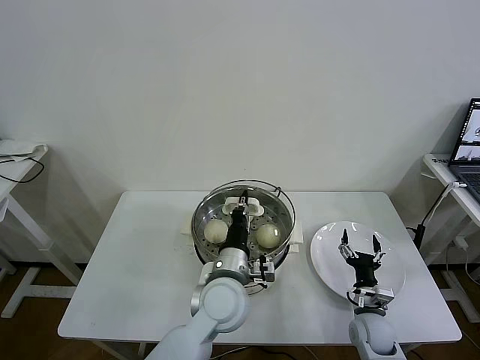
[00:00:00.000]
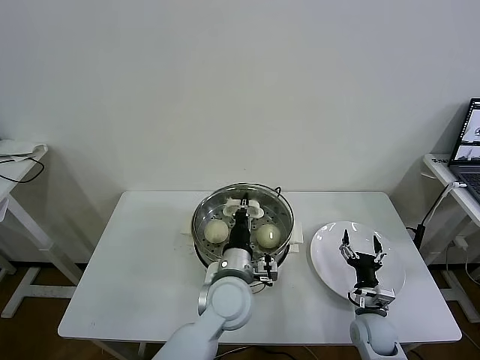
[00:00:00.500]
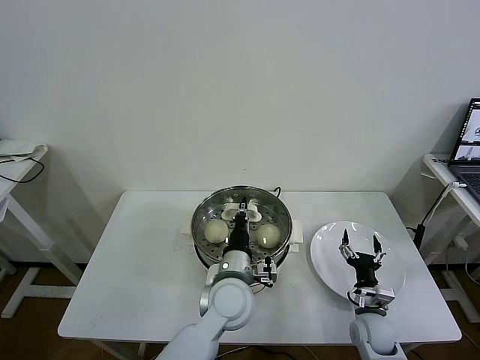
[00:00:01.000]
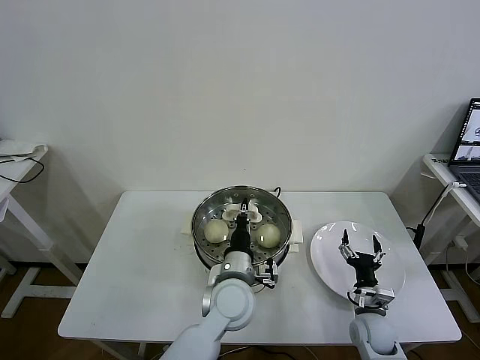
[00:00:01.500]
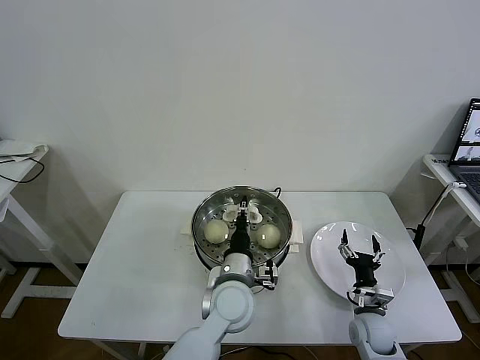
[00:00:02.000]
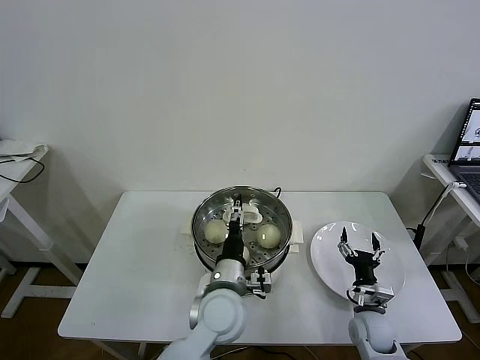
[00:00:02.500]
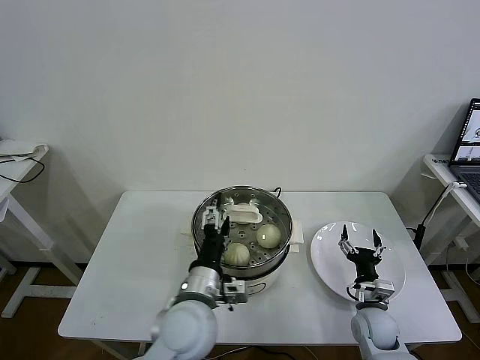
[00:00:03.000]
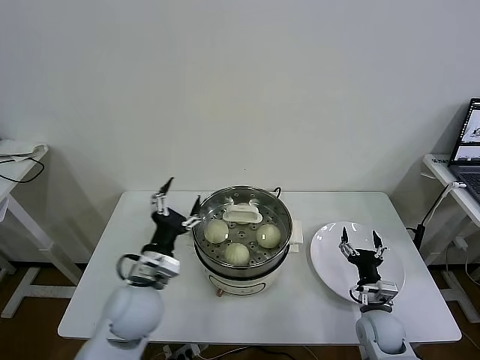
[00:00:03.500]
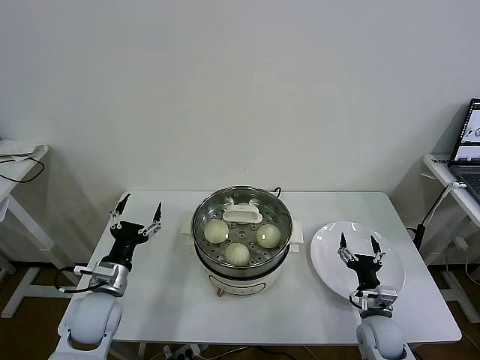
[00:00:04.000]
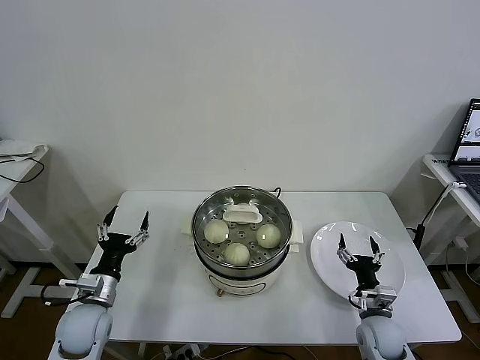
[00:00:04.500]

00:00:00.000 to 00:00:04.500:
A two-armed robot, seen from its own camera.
Task of the whole recording: take steamed baozi put them in steamer then cover it.
Step, 00:00:00.000 to 00:00:02.500: Place the pot lid on the steamer with left gripper.
00:00:00.000 to 00:00:02.000: The grippers make only small movements.
00:00:02.000 to 00:00:04.500: The left gripper is displaced to the left by about 30 cm, and opens.
